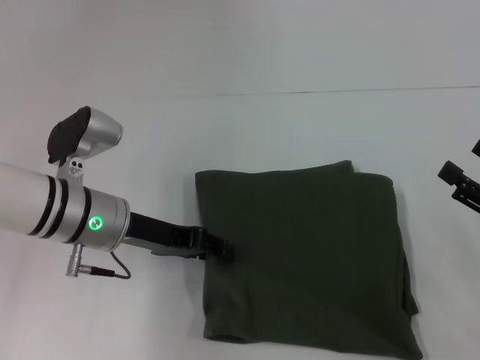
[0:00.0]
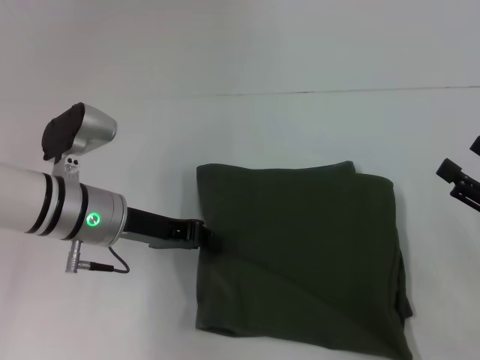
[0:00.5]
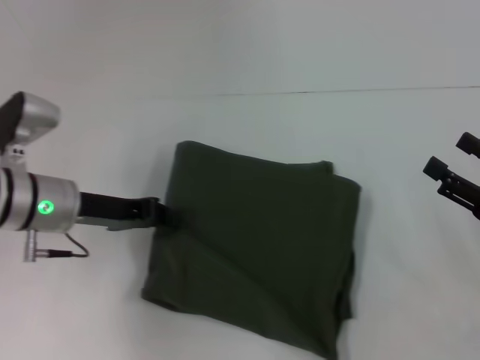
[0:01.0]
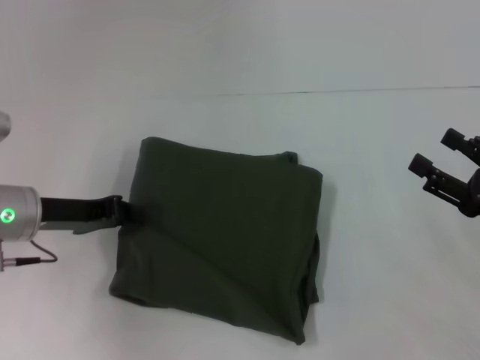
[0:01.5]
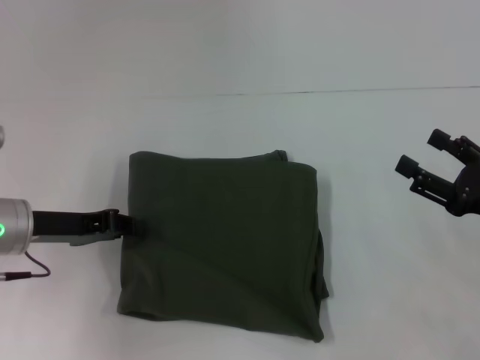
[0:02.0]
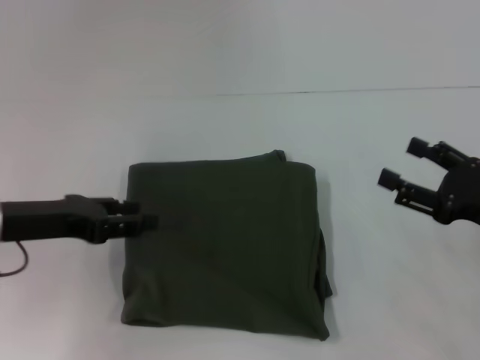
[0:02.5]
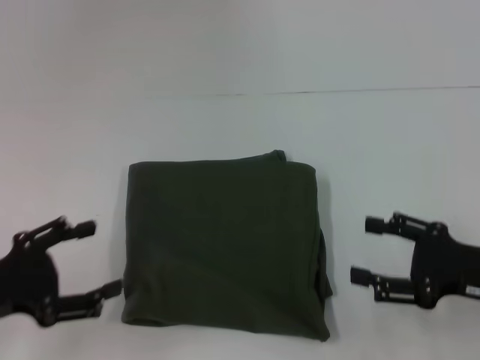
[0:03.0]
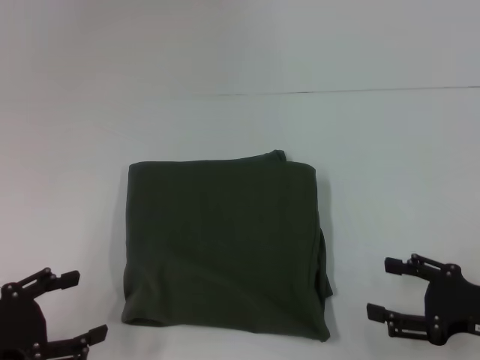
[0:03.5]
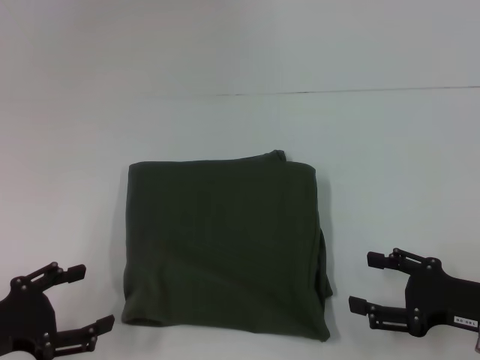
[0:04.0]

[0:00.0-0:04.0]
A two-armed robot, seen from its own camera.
0:00.0 to 0:02.0: The left gripper shifts roughly 10 cm to the left, and closes up.
0:02.0 to 0:04.0: The right gripper moves approximately 5 cm. Meanwhile the left gripper goes some 15 cm backward, and opens up.

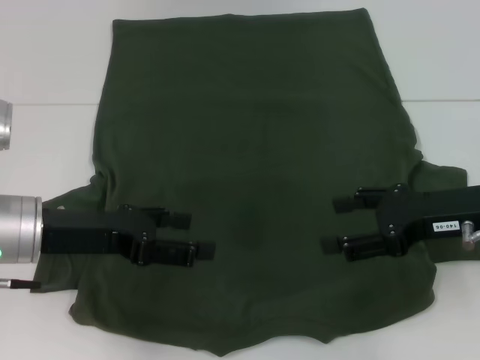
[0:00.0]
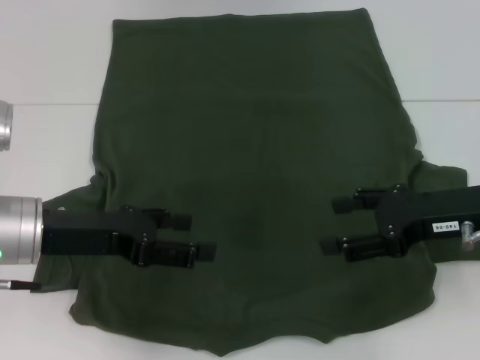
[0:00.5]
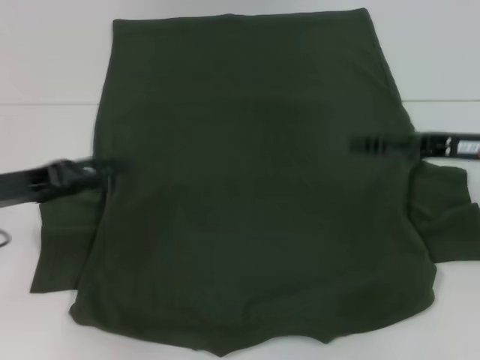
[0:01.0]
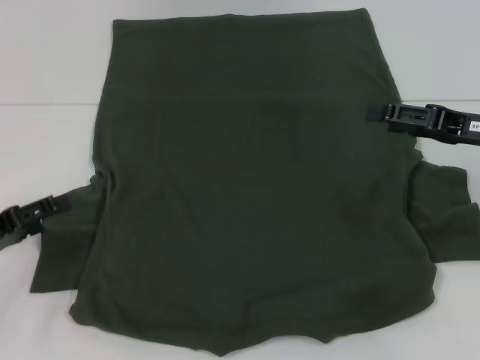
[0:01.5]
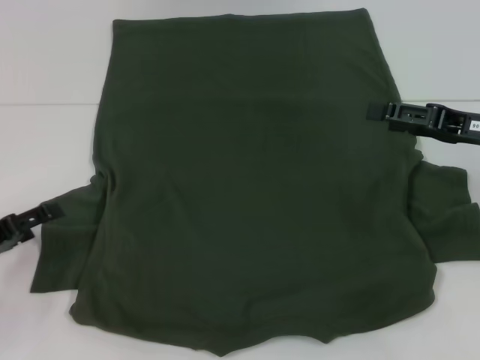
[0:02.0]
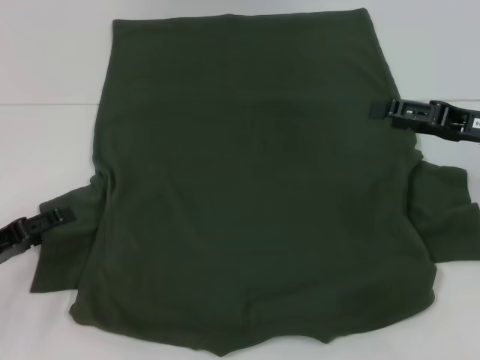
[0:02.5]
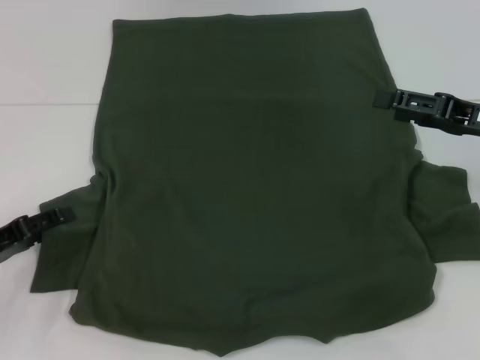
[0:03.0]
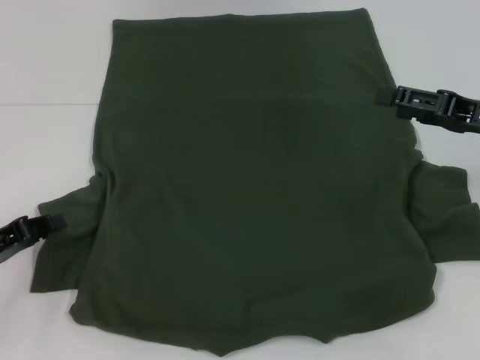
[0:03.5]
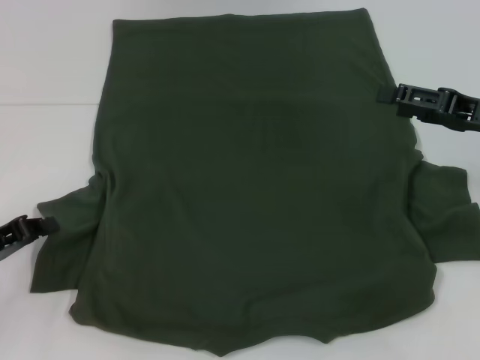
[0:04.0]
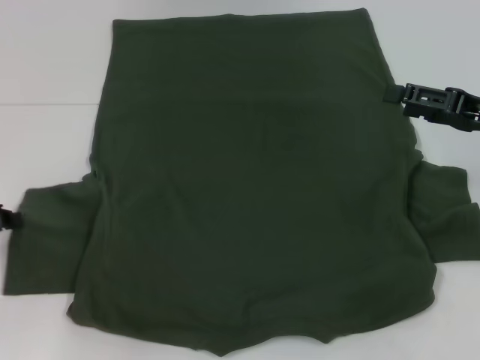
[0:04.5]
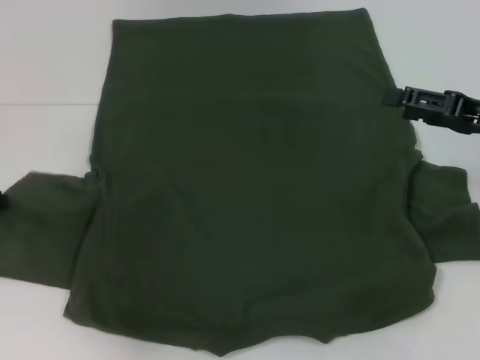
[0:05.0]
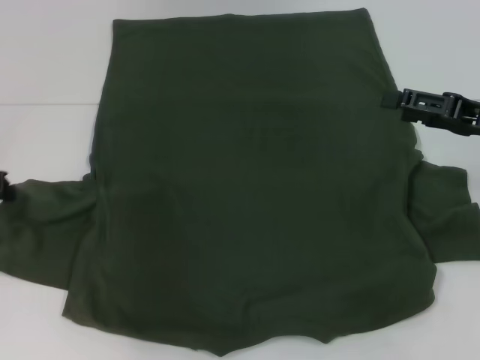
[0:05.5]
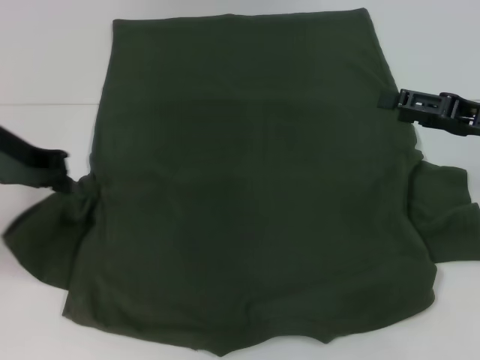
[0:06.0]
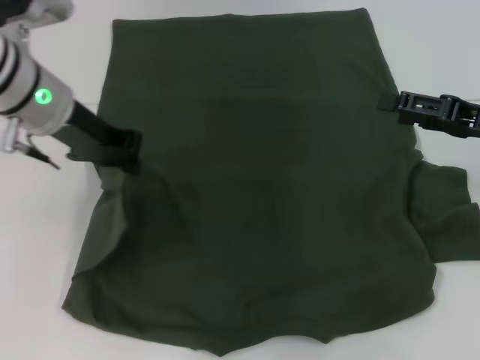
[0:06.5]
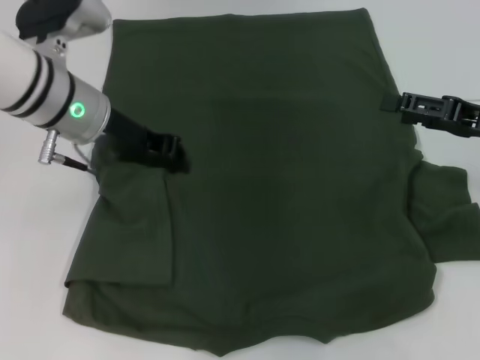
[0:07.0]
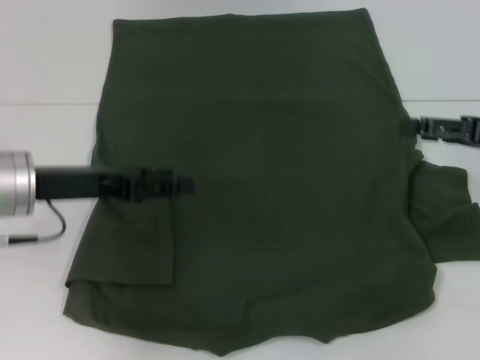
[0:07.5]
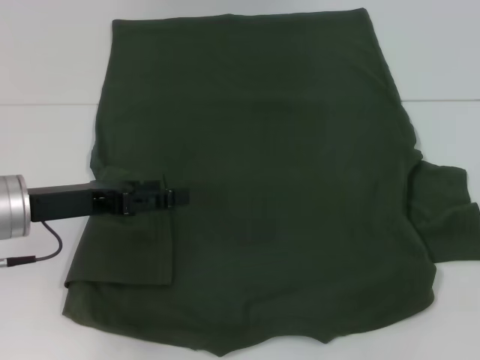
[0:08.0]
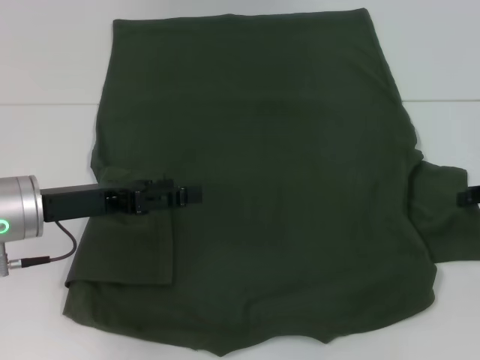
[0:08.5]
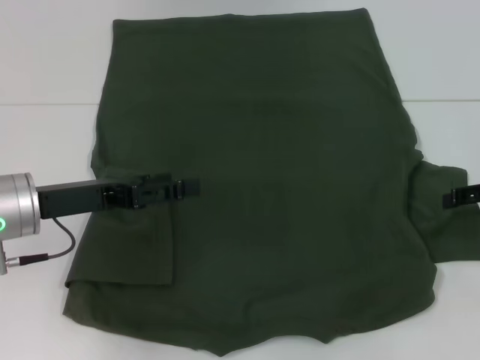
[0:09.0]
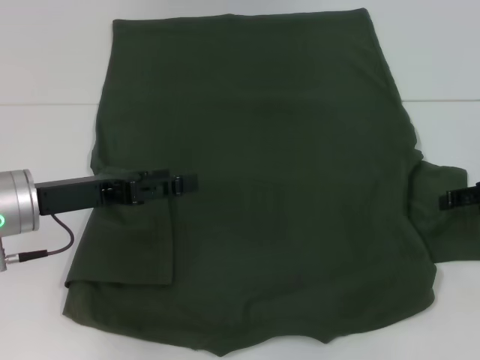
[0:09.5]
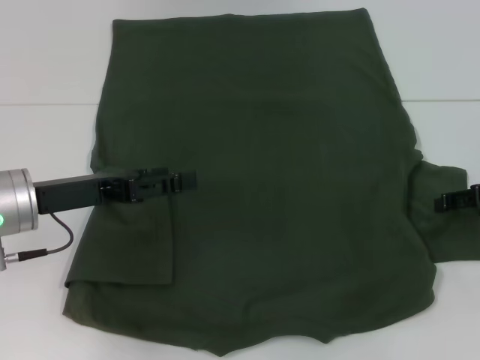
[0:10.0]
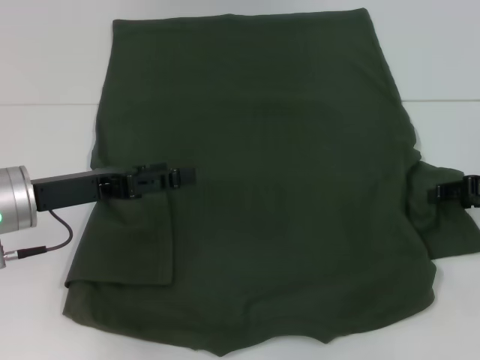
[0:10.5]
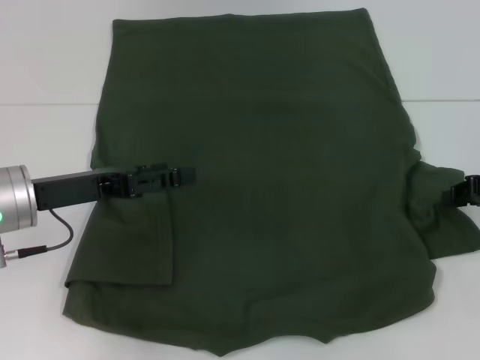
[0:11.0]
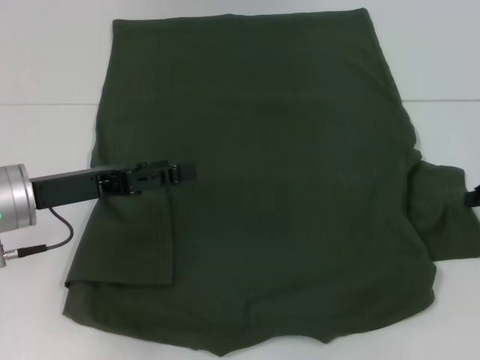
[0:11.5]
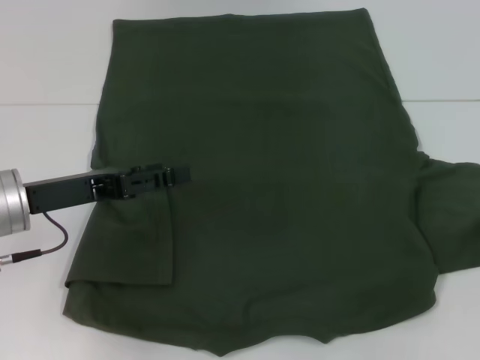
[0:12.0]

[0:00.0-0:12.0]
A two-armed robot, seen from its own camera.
Step, 0:00.0 to 0:07.0: Fold the bottom left sleeve with your left hand.
0:00.0 to 0:02.0: The left gripper goes some 15 cm to the left and downward, while the right gripper ends up about 5 cm from where it was.
0:02.0 to 0:04.0: The left gripper closes.
0:04.0 to 0:06.0: The left gripper heads upward, forward and to the right, covering approximately 20 cm.
0:06.0 to 0:08.0: The left gripper moves downward and backward, roughly 10 cm, and opens. Meanwhile the right gripper shifts about 10 cm to the right.
0:10.0 to 0:12.0: The right gripper shifts some 5 cm to the right, and closes.

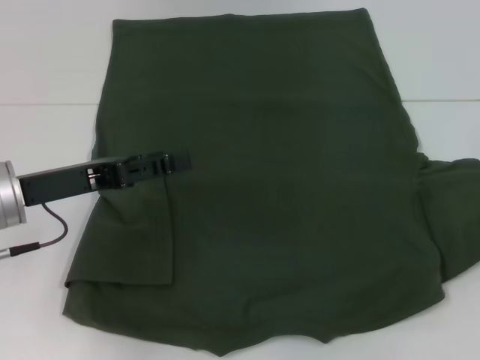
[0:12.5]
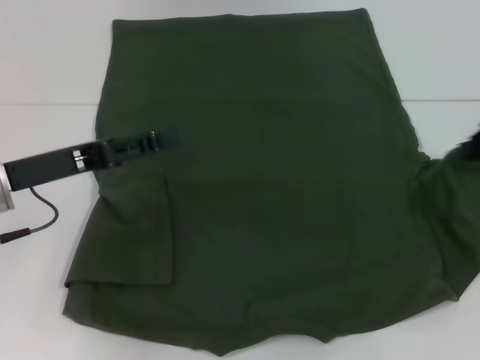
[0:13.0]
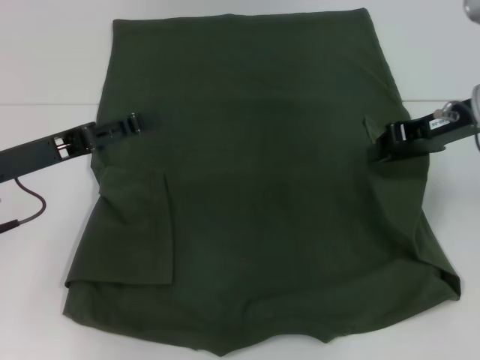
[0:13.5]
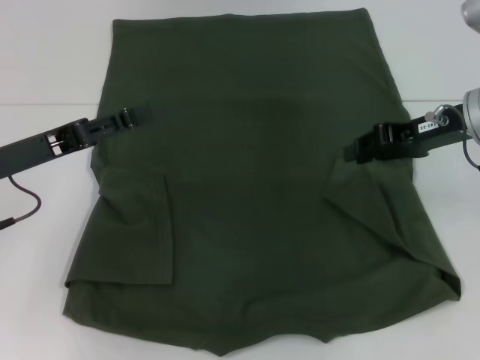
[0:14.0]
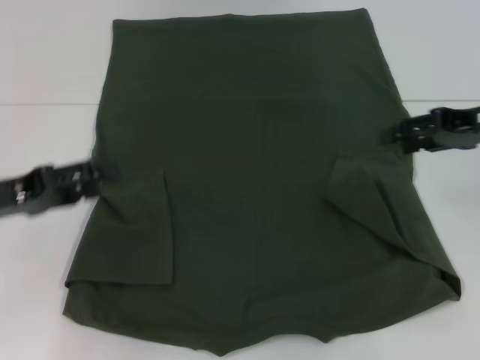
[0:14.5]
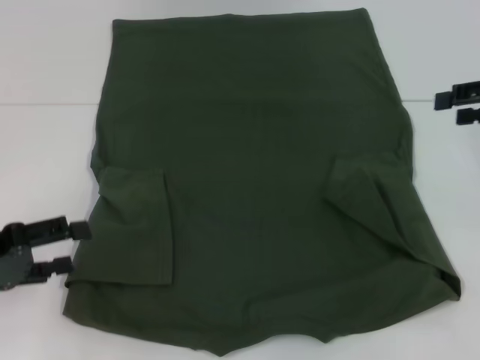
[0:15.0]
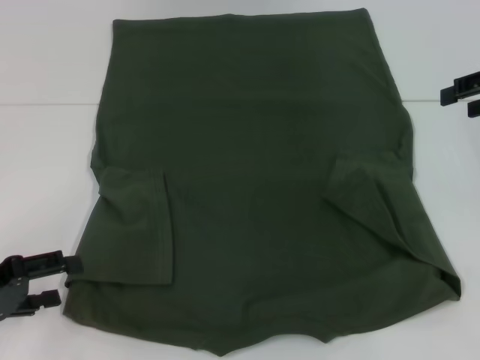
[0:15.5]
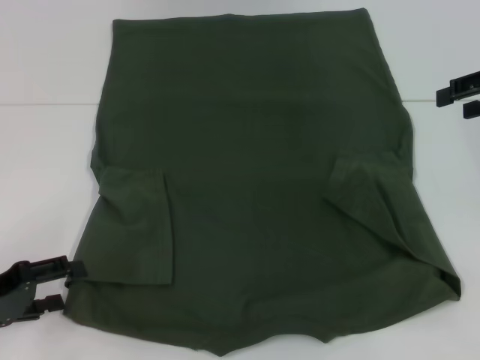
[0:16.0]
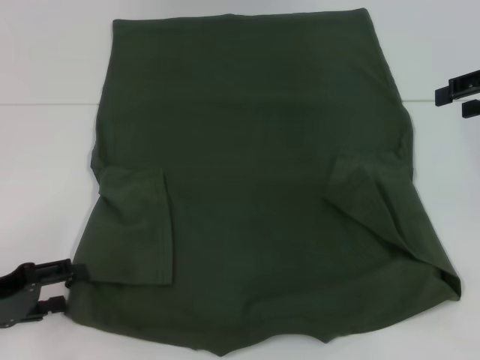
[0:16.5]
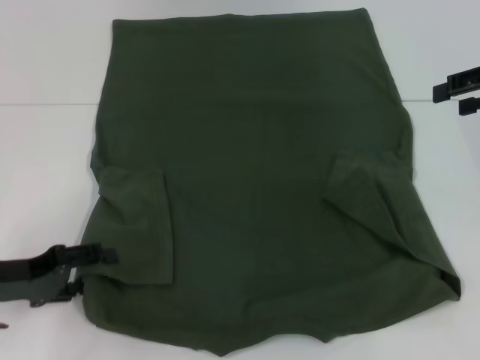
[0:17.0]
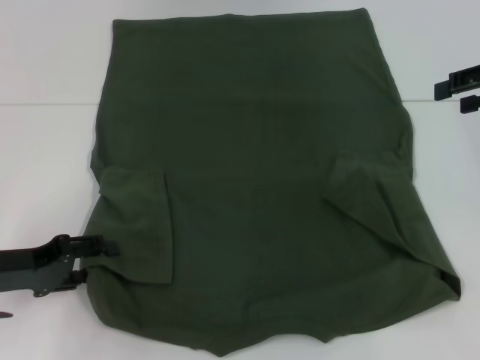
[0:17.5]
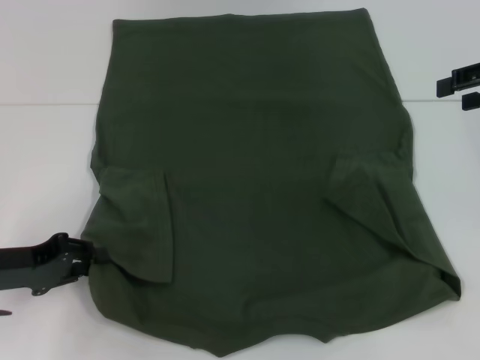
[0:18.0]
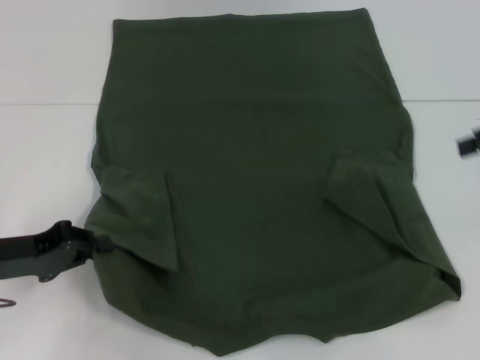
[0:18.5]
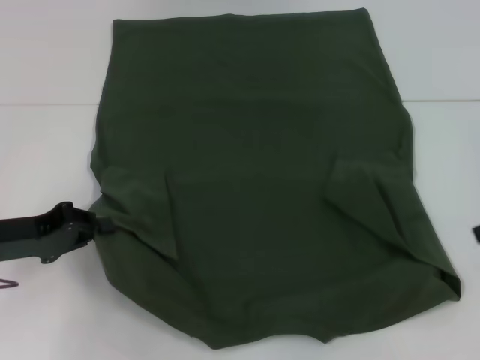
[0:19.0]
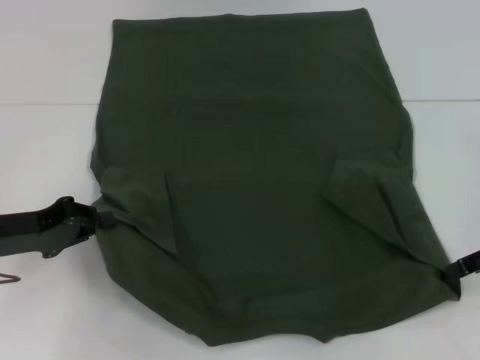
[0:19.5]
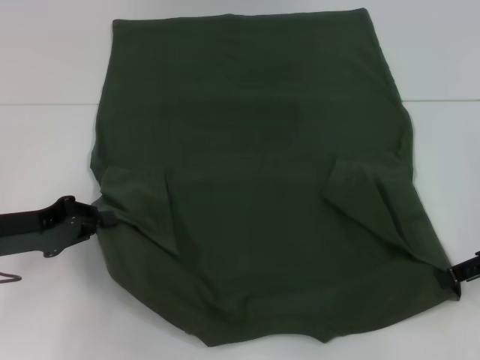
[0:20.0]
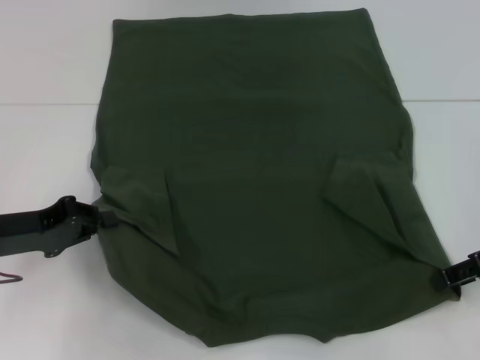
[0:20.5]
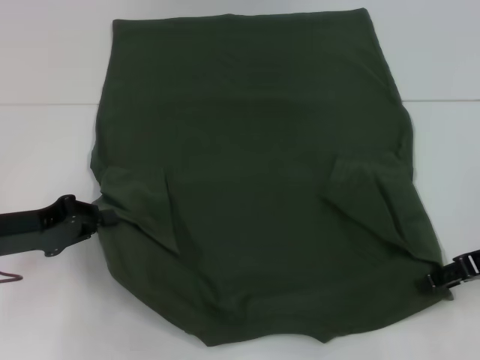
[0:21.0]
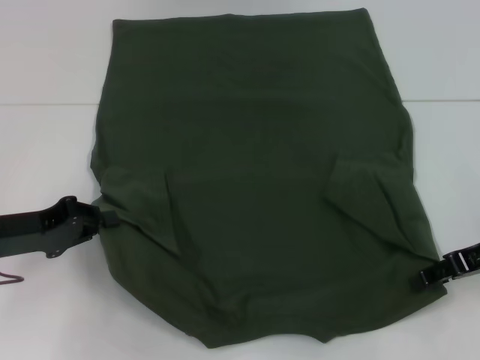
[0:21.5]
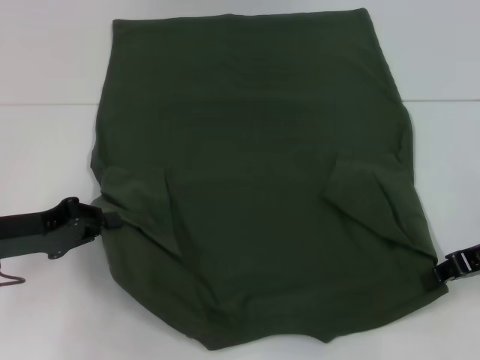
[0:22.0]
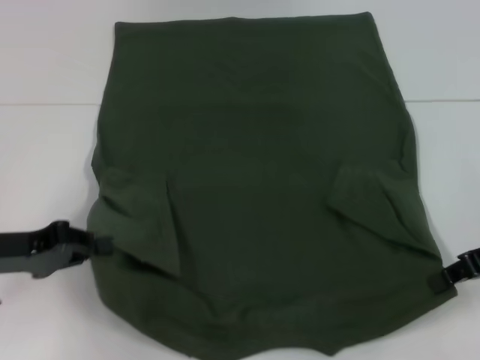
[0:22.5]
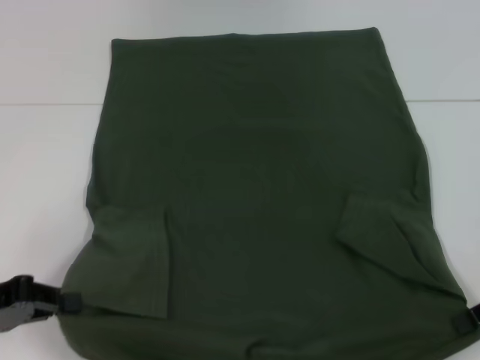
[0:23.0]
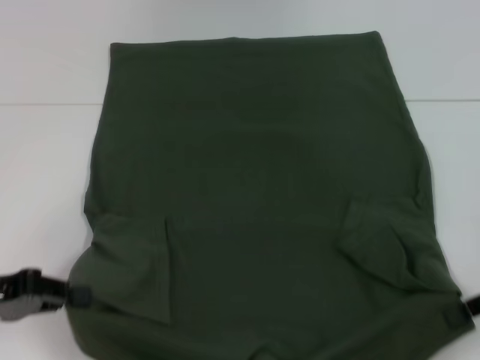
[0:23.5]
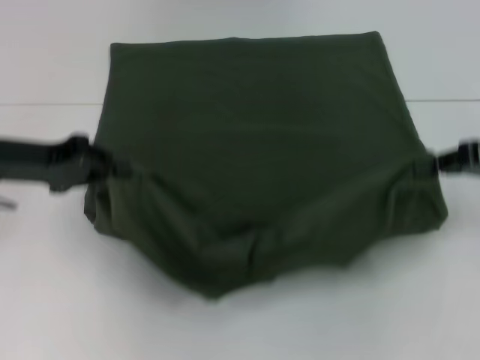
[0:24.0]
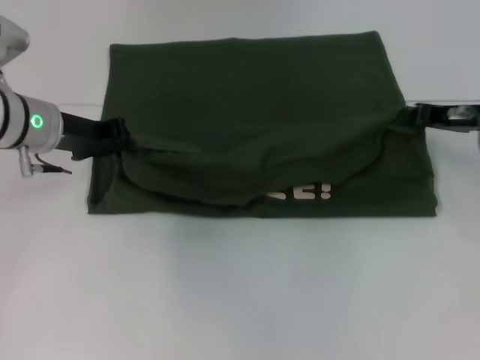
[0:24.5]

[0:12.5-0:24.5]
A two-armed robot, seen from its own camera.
Step, 0:14.5 to 0:18.0: Grab the bottom left corner with your left hand.
Step, 0:18.5 to 0:22.0: Grab the bottom right corner with your right hand.
0:12.5 to 0:14.5: The right gripper travels to the left by some 10 cm, and opens its fingers. The left gripper goes about 5 cm to the left.
0:14.5 to 0:16.5: The left gripper is displaced downward by roughly 5 cm. The right gripper changes place by roughly 5 cm.
0:16.5 to 0:18.5: The left gripper closes up.
0:18.5 to 0:20.5: The right gripper shifts approximately 10 cm downward.
0:20.5 to 0:22.5: The right gripper closes up.
0:22.5 to 0:24.5: The right gripper moves forward, about 10 cm, while the left gripper heads forward and to the right, covering about 15 cm.
